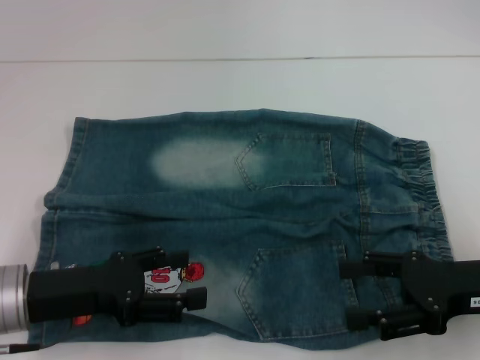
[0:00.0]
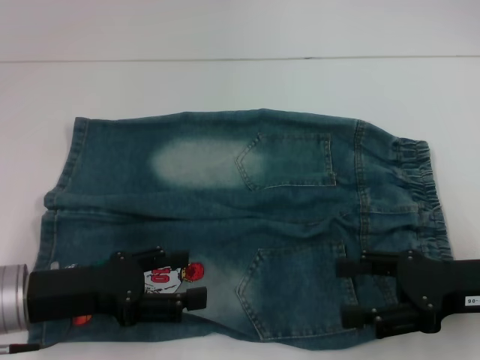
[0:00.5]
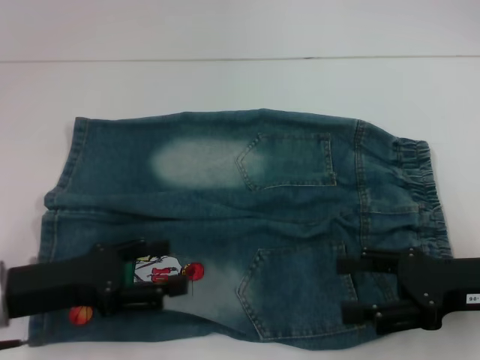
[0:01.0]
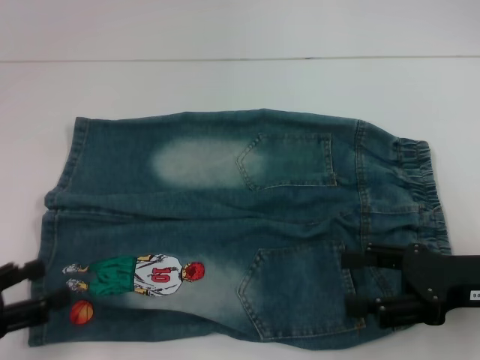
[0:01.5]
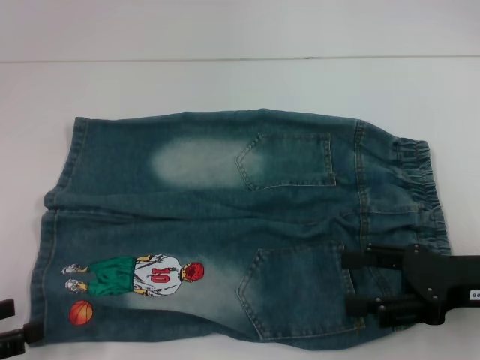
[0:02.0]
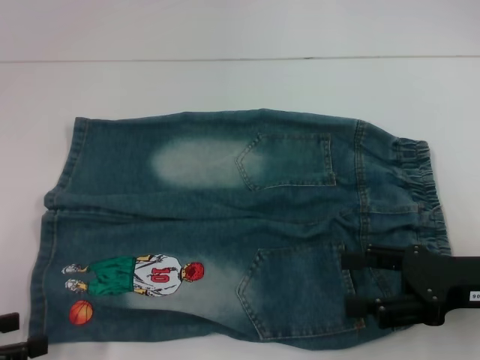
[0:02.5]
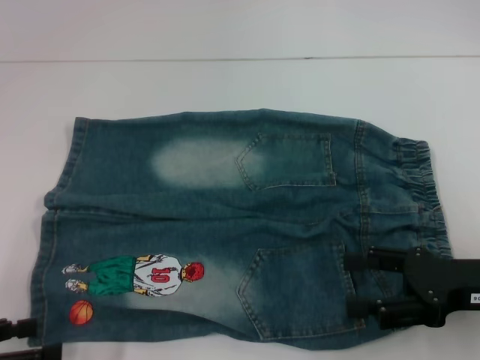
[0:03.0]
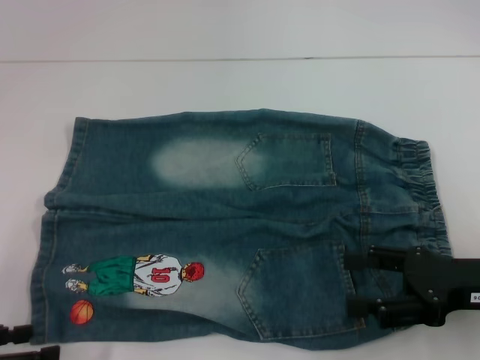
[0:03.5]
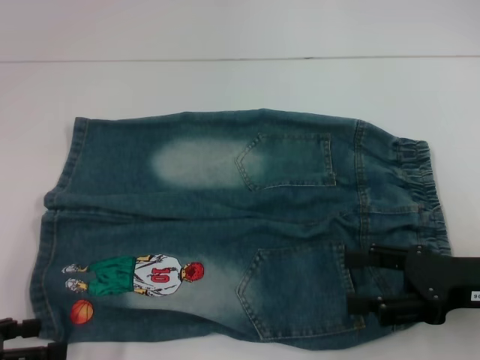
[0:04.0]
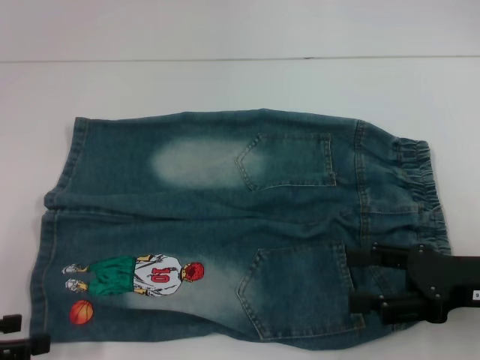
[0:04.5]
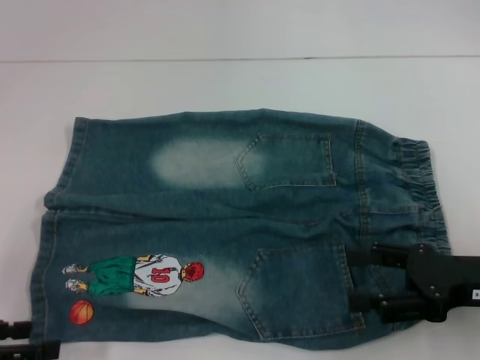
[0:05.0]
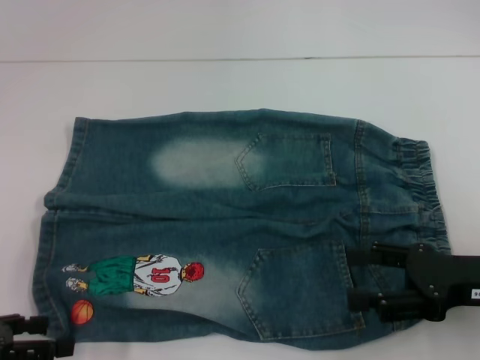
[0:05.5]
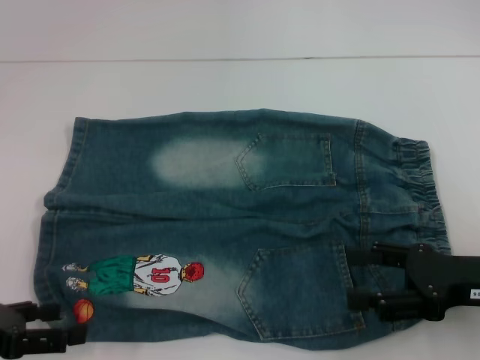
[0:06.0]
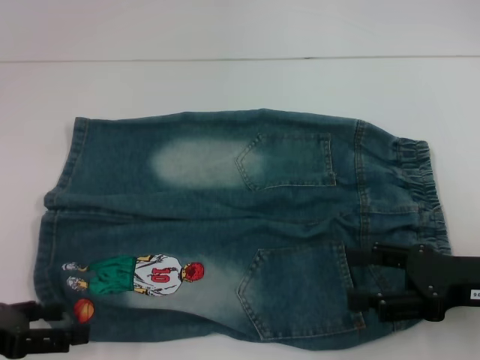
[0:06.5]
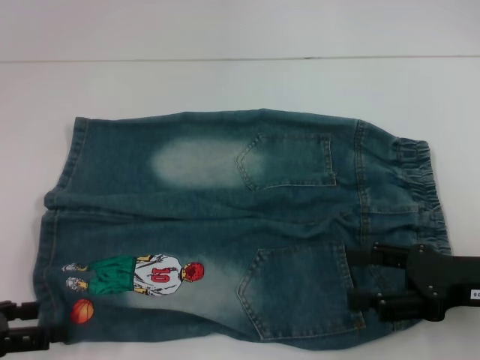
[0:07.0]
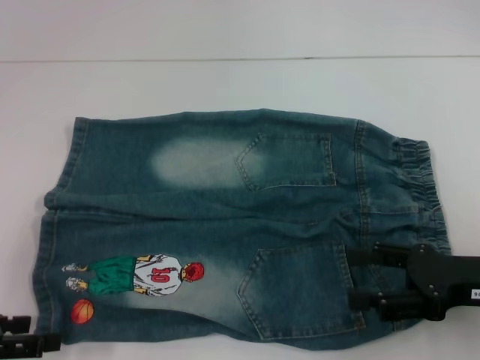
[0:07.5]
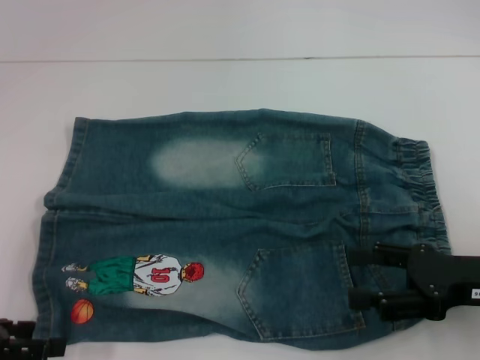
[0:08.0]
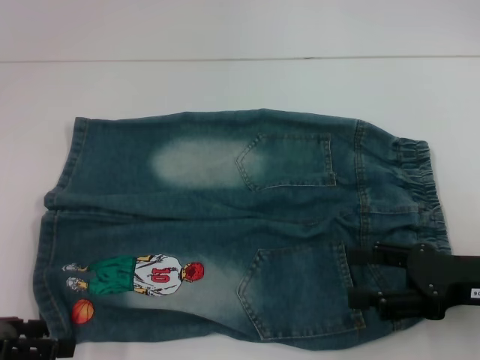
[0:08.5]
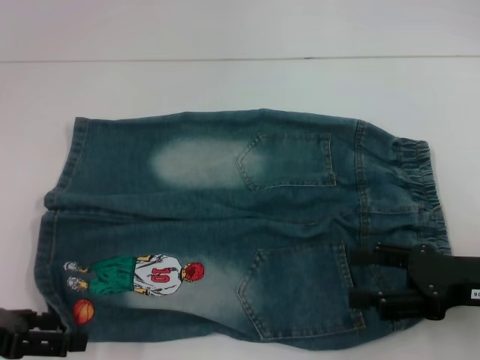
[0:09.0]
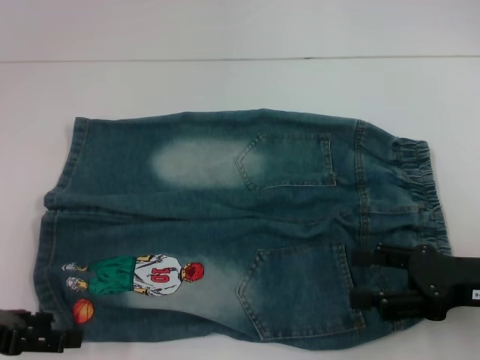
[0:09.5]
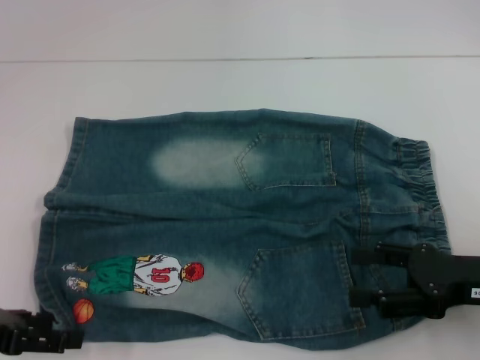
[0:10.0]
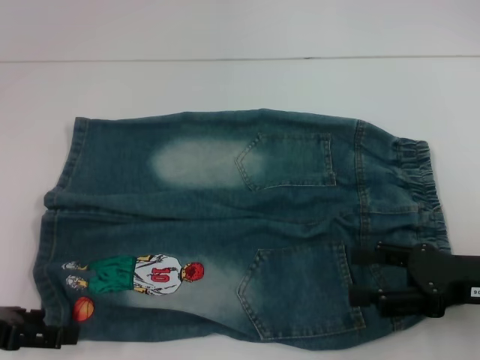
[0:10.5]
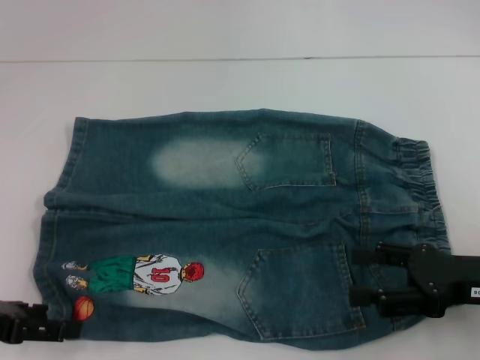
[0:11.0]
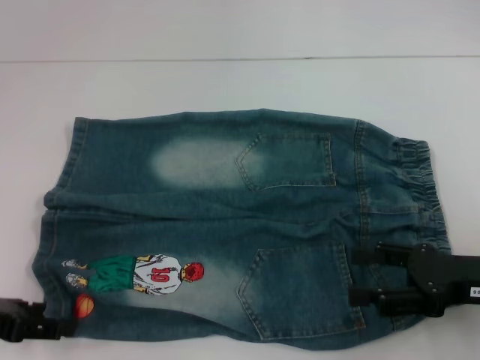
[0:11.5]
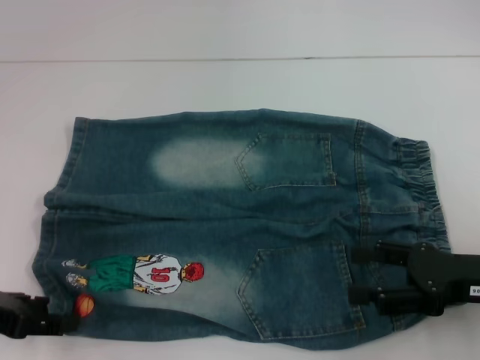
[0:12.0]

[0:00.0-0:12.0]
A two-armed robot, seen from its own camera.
0:00.0 to 0:02.0: The left gripper heads to the left and backward, covering about 15 cm.
0:02.0 to 0:06.0: The grippers make only small movements.
0:06.0 to 0:12.0: The grippers stay close to where they were, moving slightly.

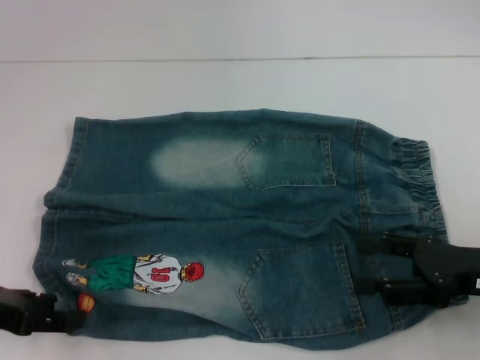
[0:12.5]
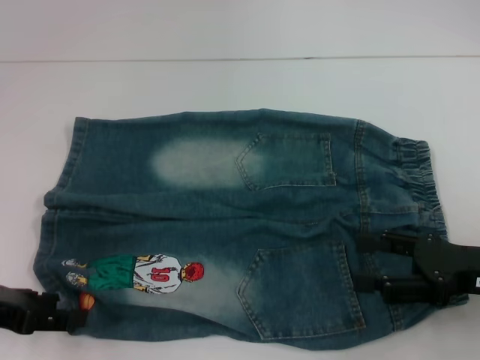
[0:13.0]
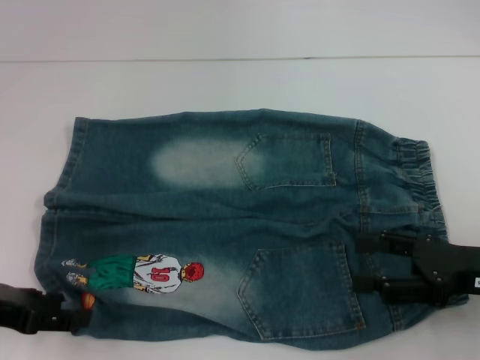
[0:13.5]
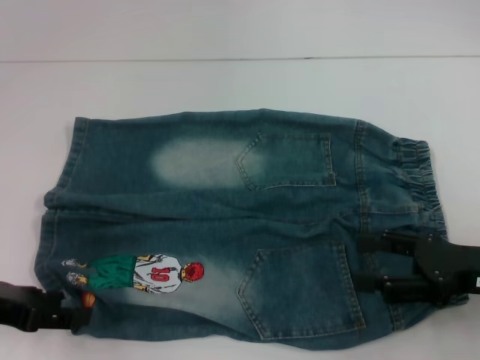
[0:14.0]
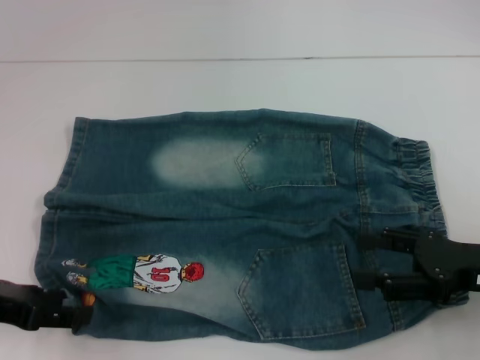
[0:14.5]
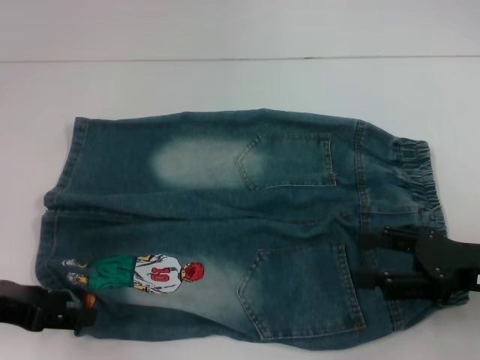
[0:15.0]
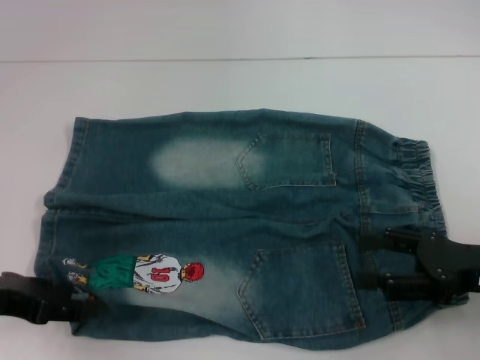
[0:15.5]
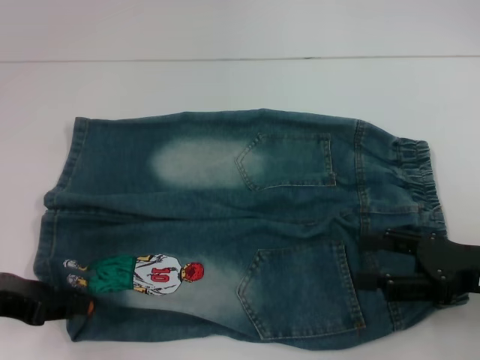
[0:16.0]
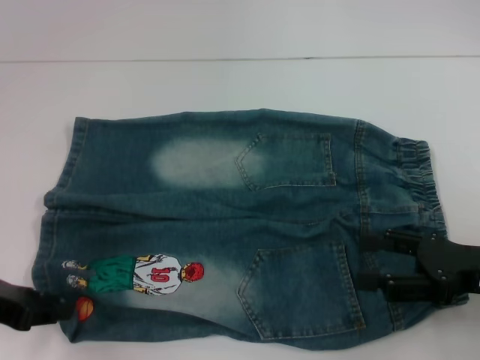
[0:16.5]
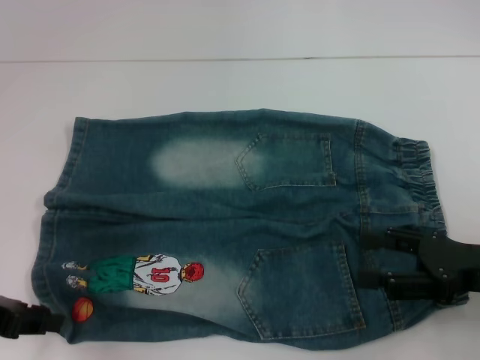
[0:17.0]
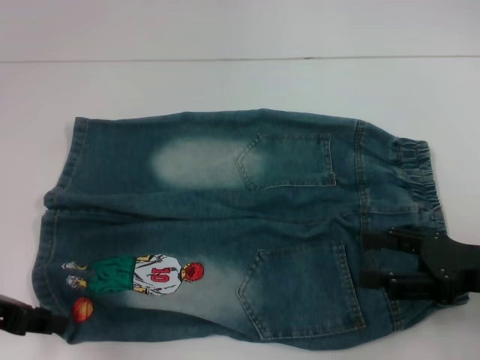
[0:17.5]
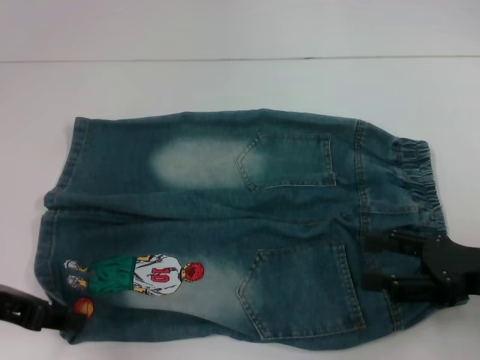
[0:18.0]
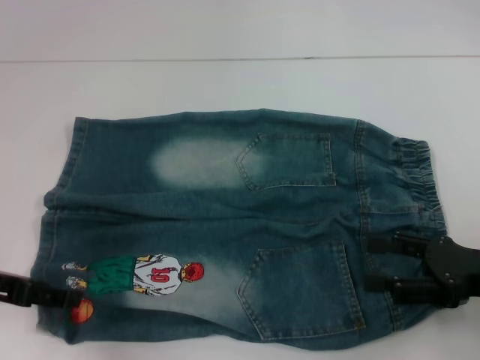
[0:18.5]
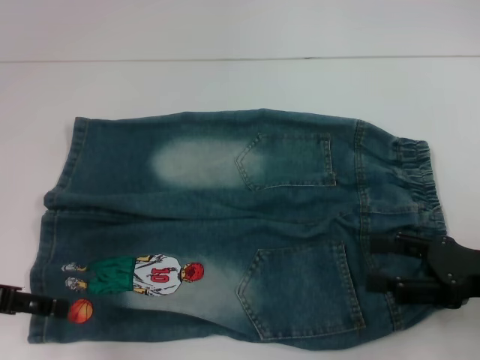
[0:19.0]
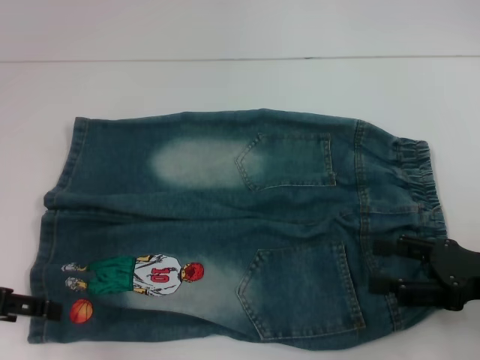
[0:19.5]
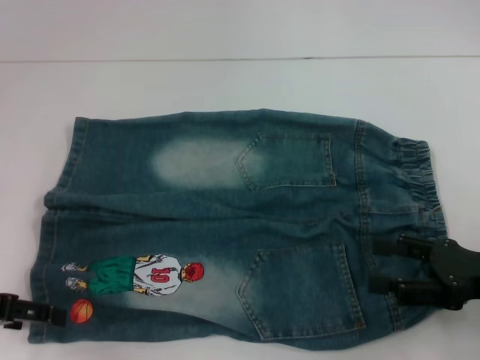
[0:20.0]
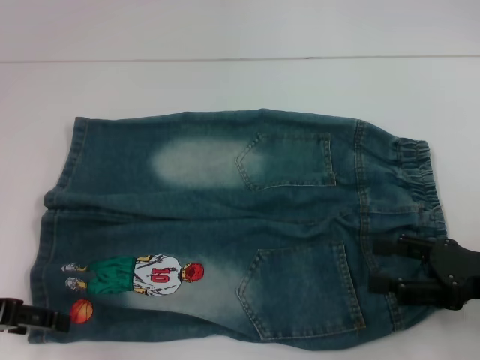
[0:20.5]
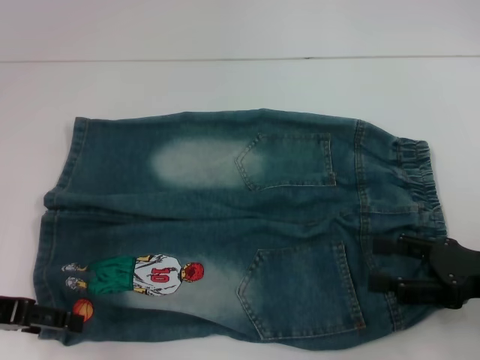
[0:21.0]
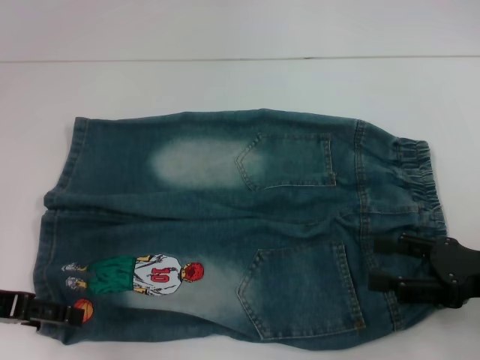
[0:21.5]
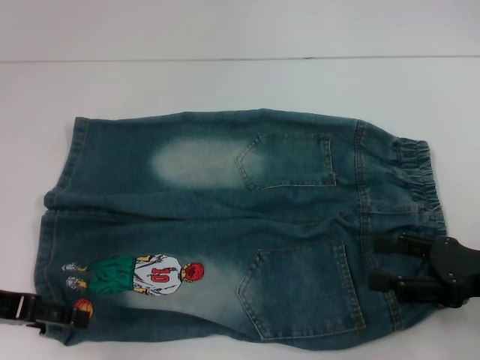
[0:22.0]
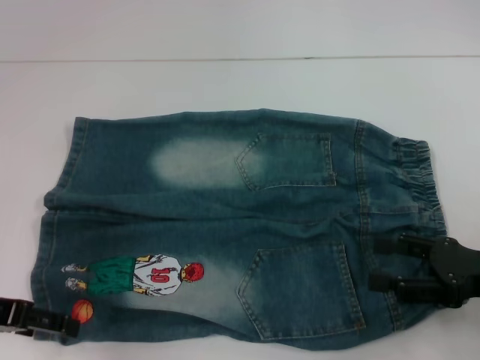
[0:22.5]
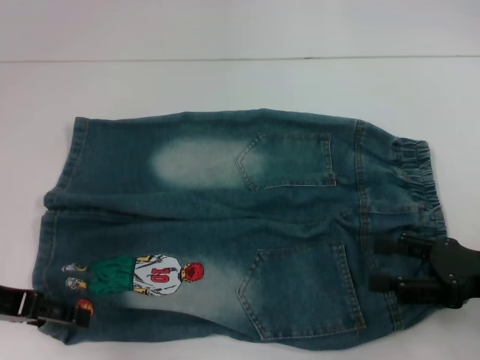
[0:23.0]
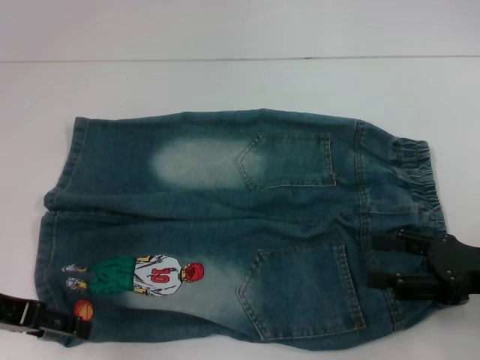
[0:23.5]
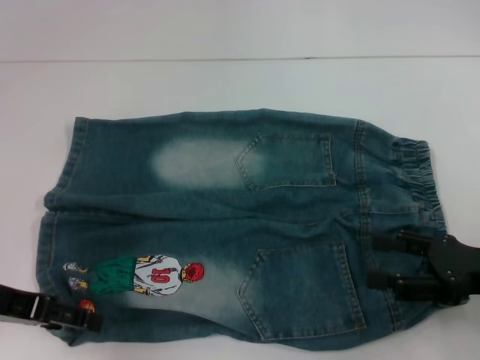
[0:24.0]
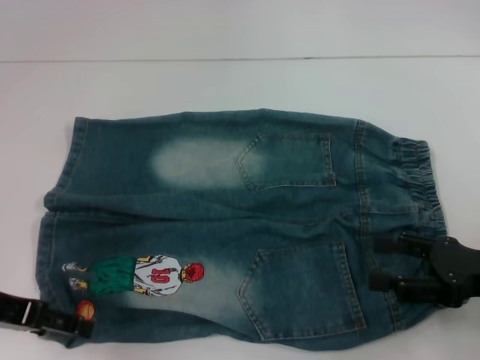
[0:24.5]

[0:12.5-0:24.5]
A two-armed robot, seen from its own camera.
0:12.5 to 0:14.5: Both grippers stay about where they are.
0:14.5 to 0:16.5: The left gripper closes up.
0:16.5 to 0:18.5: The left gripper opens up.
0:18.5 to 0:20.5: The grippers stay close to where they were, moving slightly.
0:22.5 to 0:24.5: The grippers stay close to where they were, moving slightly.

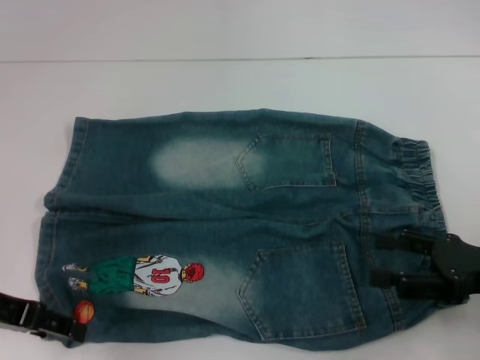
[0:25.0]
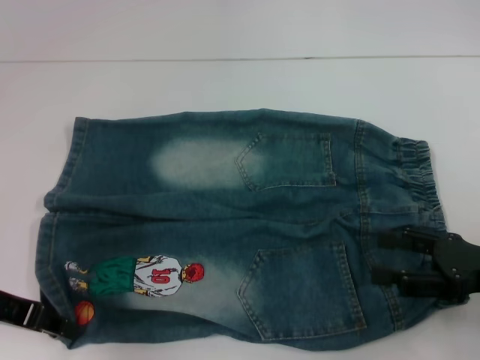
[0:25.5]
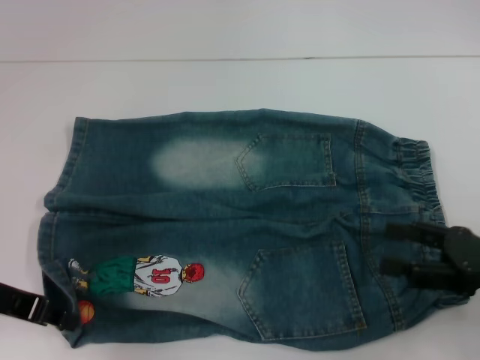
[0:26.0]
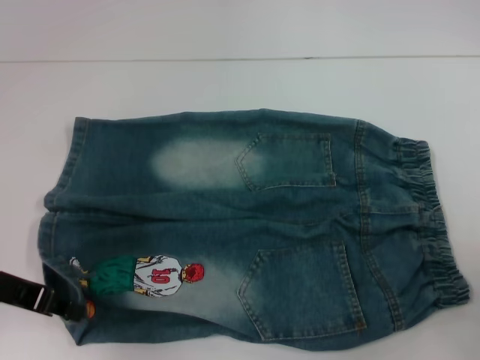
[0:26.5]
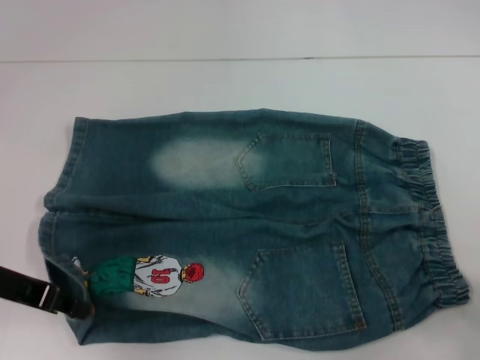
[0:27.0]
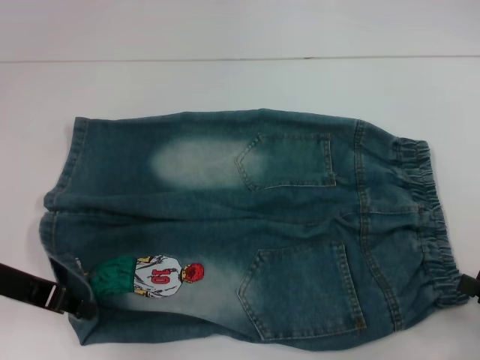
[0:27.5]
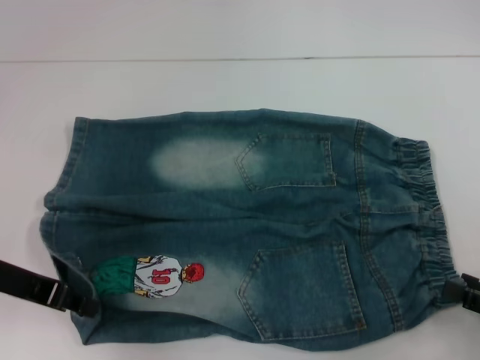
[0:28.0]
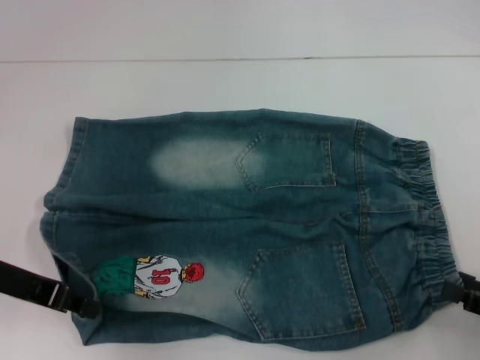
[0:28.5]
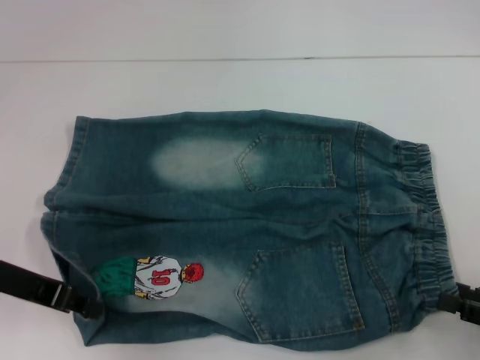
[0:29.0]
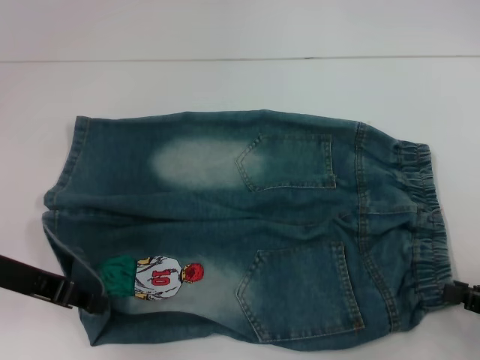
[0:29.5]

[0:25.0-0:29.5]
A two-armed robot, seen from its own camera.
Step, 0:26.5 to 0:29.0: Hold the lower right waistband with your right hand.
0:25.0 to 0:27.0: The left gripper closes up. Meanwhile the right gripper shifts about 10 cm backward and to the right.
0:27.0 to 0:29.5: The right gripper closes its fingers.
